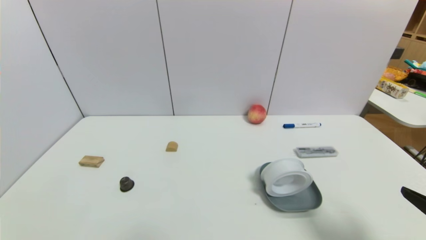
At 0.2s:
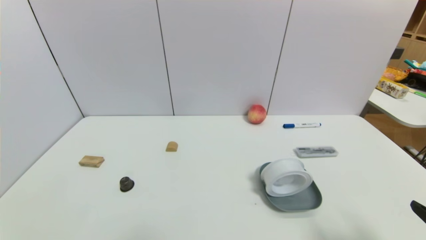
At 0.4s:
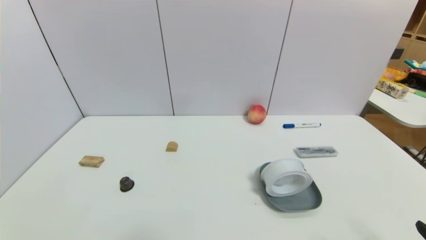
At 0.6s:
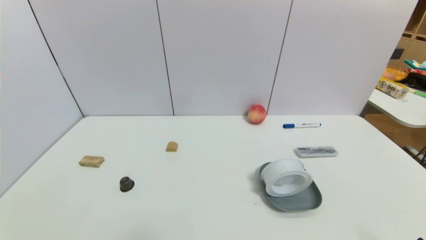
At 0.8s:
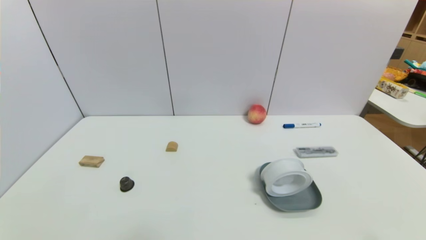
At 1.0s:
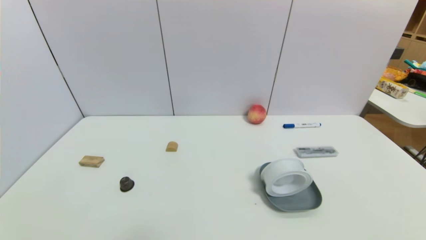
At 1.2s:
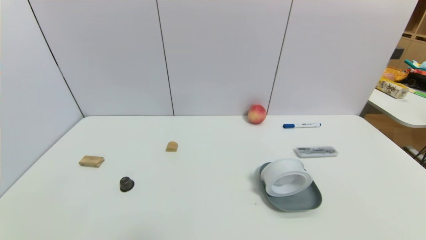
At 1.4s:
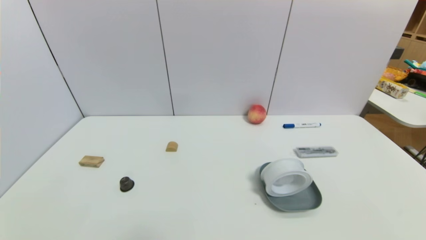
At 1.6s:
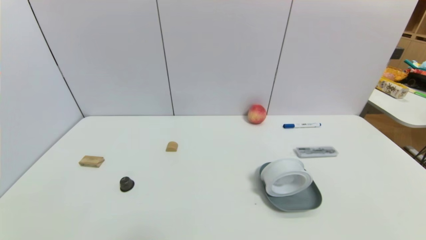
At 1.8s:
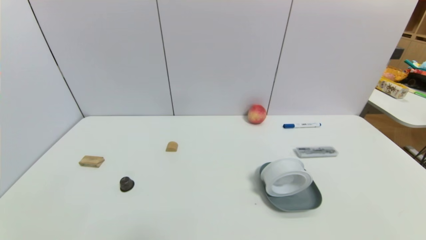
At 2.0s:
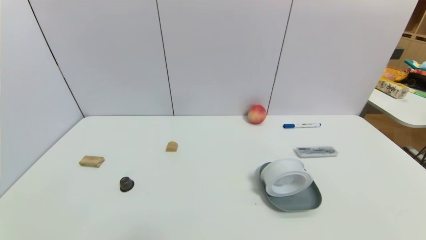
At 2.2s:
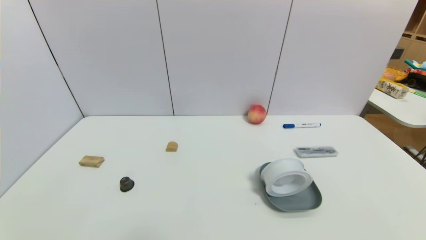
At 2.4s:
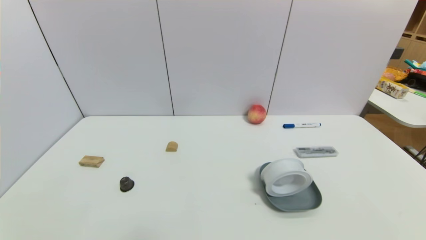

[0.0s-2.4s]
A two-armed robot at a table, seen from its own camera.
Task of the whole recording: use a gripper to pick the target object and place on the dish.
0.0s to 1.2s: The right gripper shifts some 15 cm downward and backward.

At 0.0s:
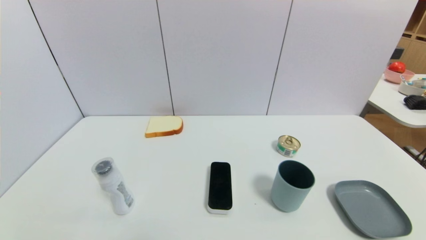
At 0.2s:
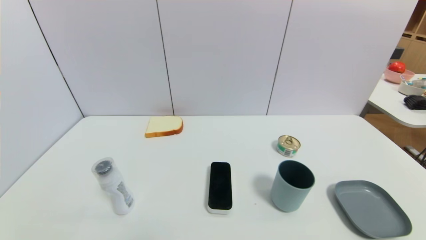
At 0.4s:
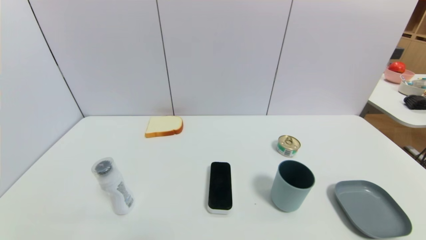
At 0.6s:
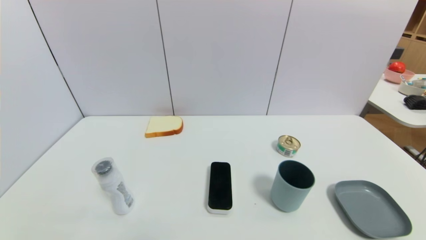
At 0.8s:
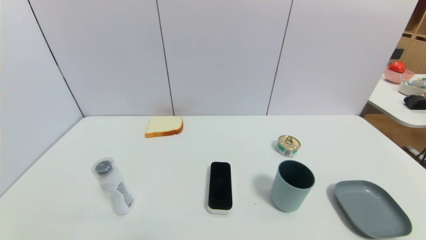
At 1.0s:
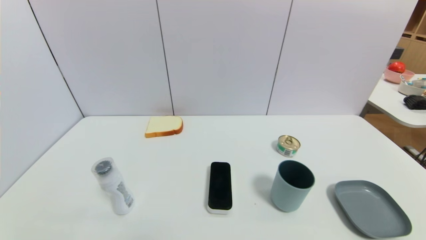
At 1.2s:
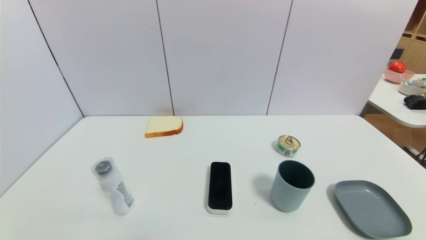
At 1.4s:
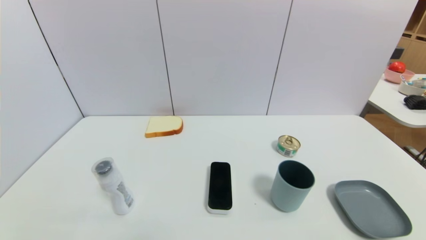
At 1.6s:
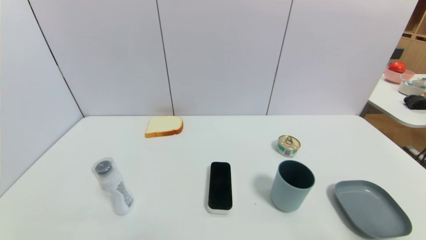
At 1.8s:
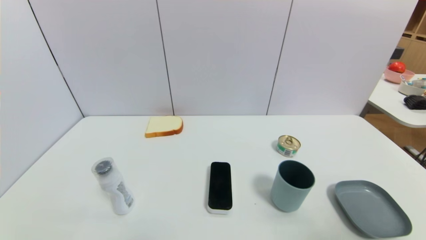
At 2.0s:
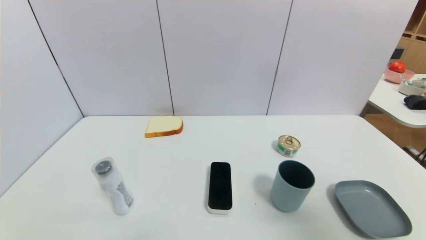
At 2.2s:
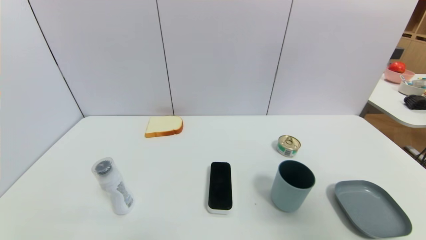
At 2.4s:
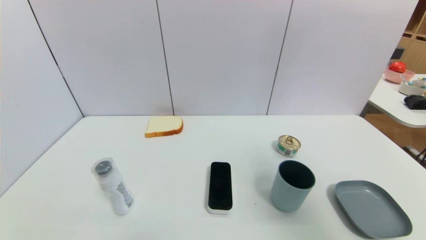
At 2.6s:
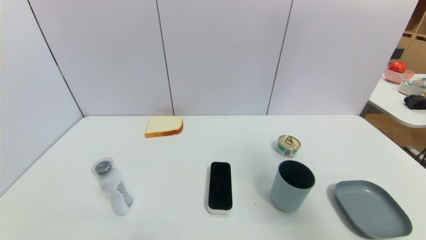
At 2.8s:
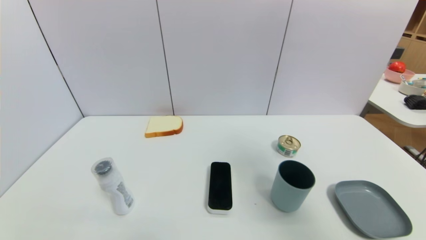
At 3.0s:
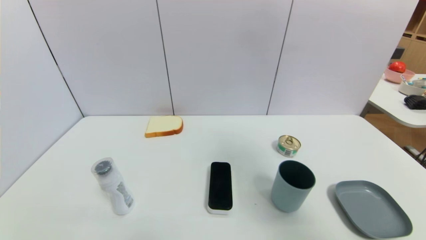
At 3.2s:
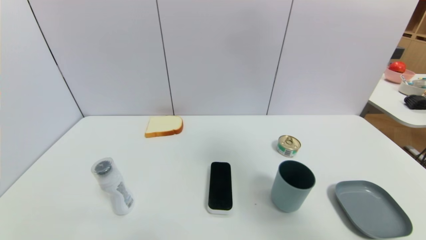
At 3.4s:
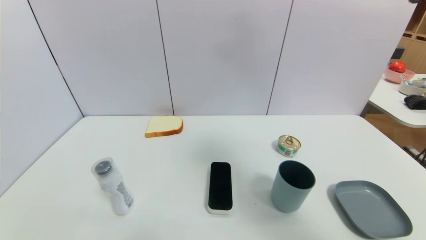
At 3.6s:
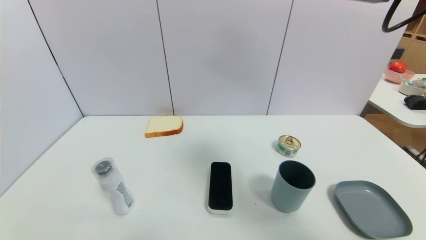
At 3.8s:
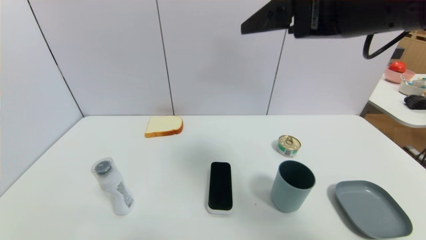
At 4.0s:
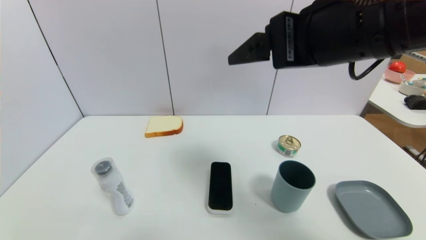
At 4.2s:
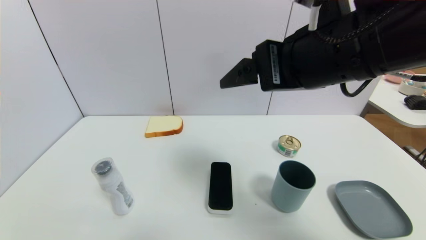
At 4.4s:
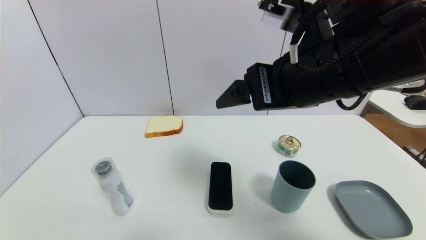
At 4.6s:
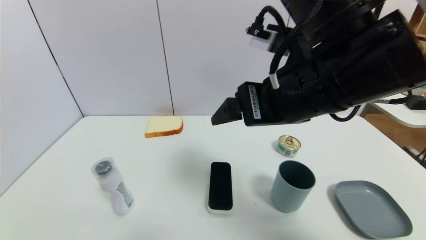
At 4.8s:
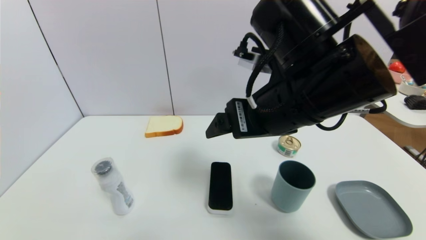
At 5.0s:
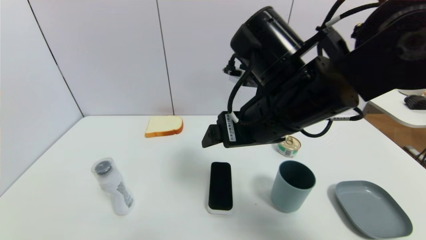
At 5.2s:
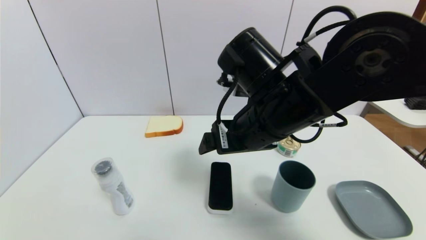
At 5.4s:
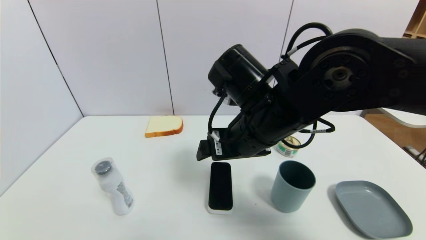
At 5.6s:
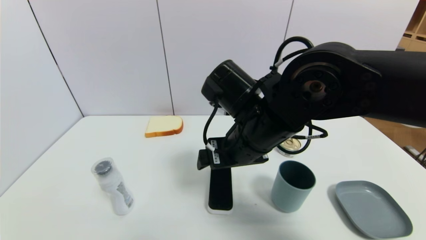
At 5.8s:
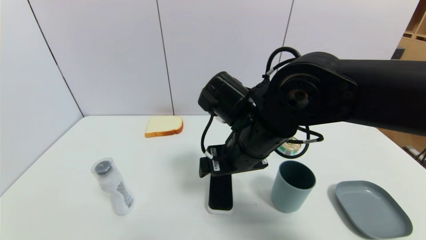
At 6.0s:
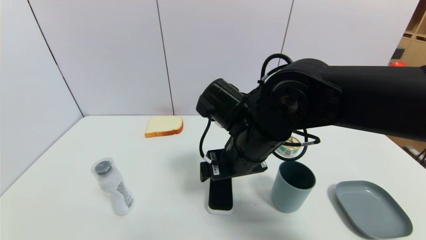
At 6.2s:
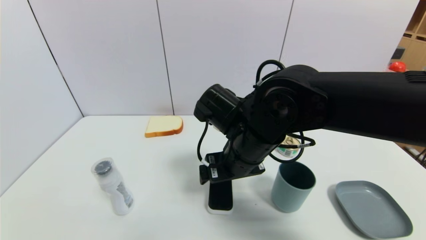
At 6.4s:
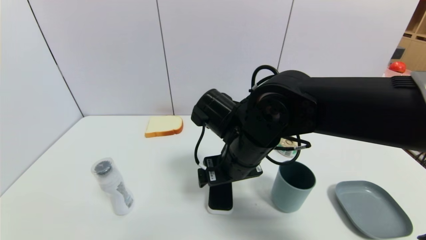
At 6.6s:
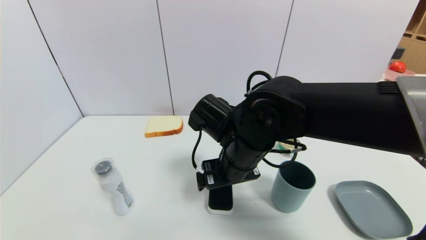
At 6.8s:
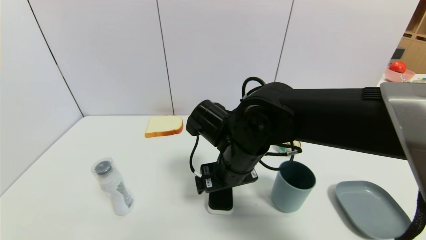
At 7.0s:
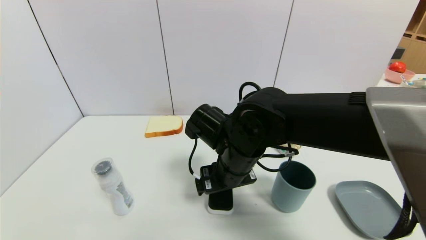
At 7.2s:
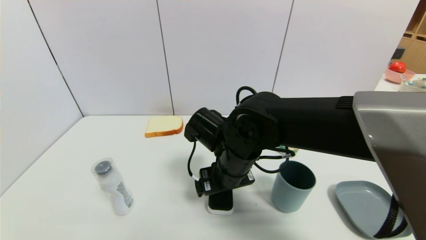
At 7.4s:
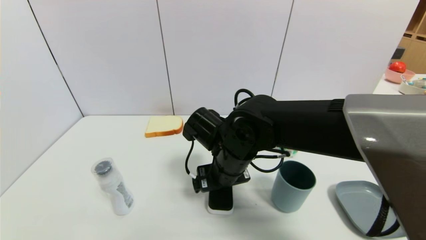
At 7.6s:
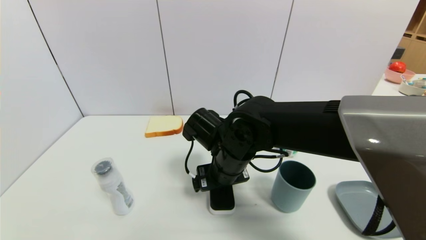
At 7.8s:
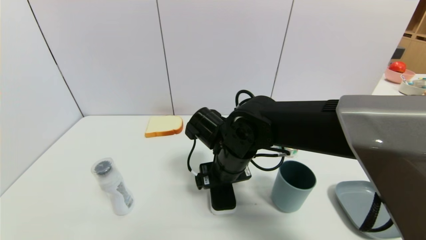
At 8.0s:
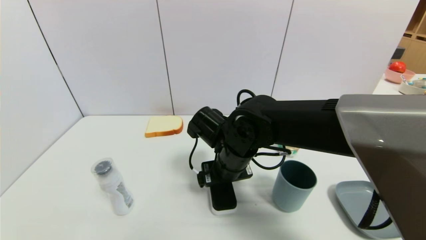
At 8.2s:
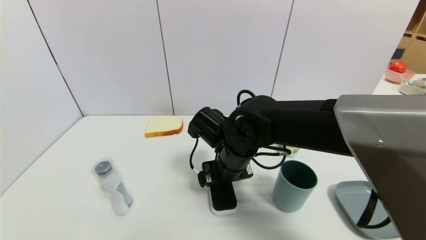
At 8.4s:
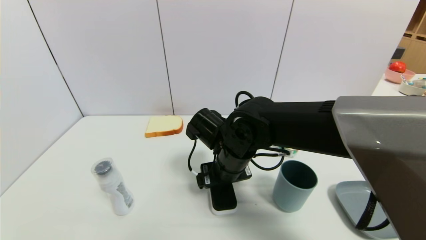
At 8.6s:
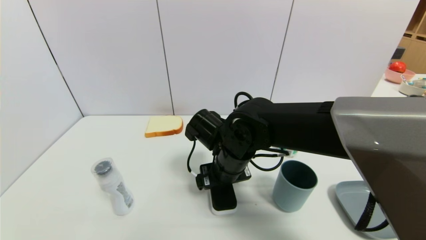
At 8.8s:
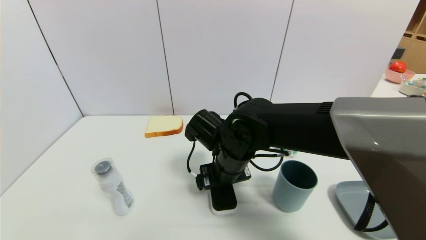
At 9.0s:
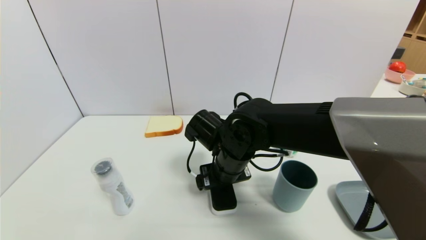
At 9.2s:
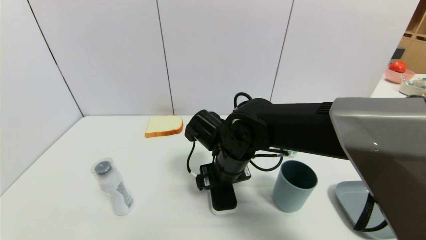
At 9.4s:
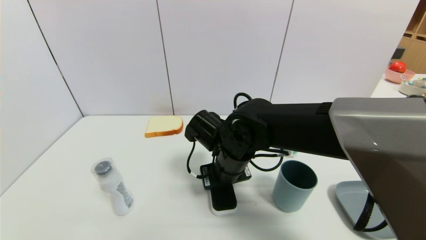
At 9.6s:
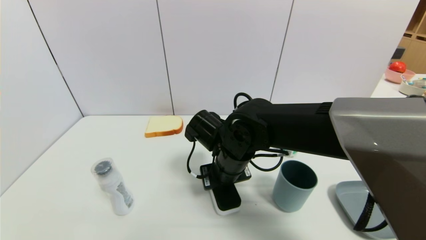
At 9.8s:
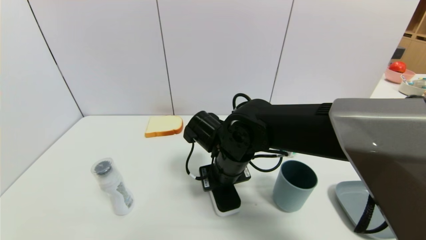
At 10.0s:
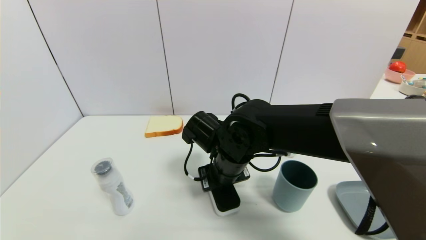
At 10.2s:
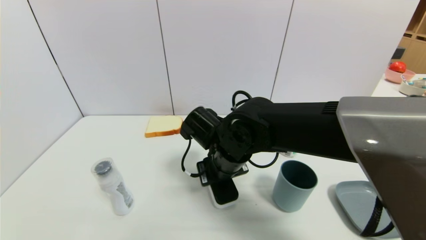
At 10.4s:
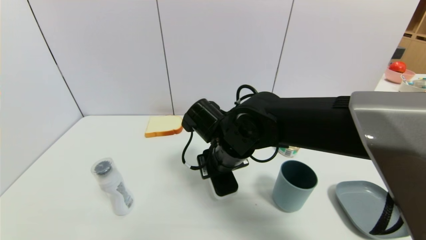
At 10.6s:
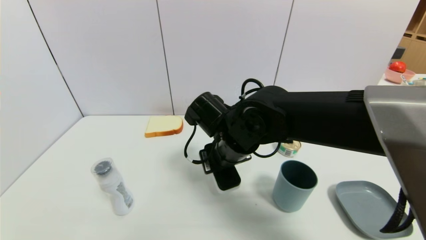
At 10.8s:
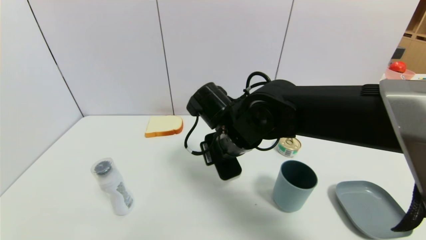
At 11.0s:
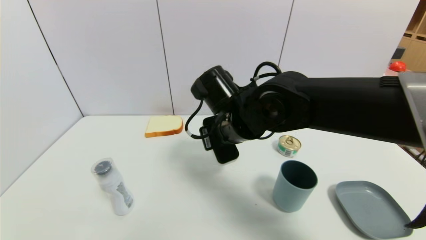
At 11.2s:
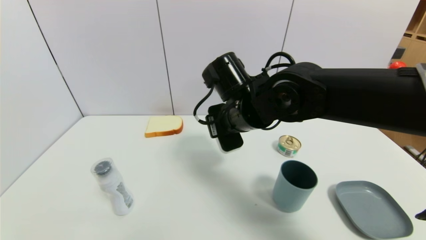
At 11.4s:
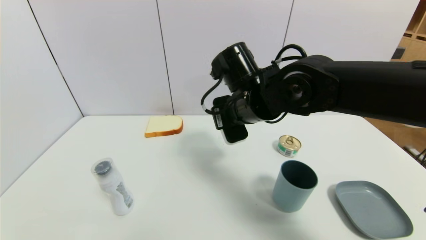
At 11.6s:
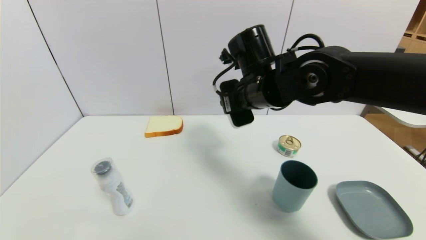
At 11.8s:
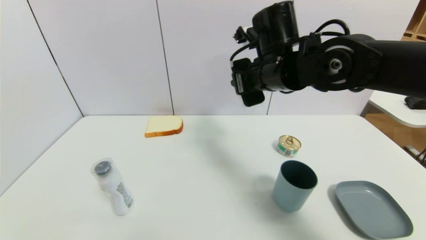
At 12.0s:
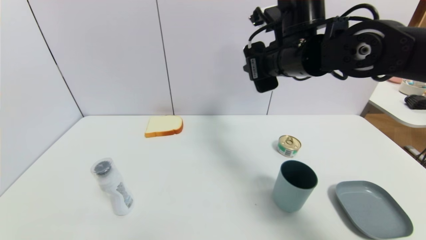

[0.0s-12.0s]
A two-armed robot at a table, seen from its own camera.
Task of the whole recording: use a gripper to pick the target object and place on the dish.
Step, 0.0s to 9.8s: Grasp the blackboard erasure with the right gripper.
1.6s to 3.0s: The right gripper is displaced upward, forward and to the left by about 30 cm.
3.0s to 4.4s: The right gripper goes about 20 cm to the left and downward.
4.4s to 6.0s: The right gripper travels downward and to the left by about 15 cm.
6.0s to 7.6s: The right gripper shifts some 5 cm downward.
7.6s to 9.0s: Both grippers stay about where they are.
9.0s to 10.4s: The right gripper closes.
10.4s to 12.0s: The right gripper heads upward, to the right and forward, covering roughly 20 cm.

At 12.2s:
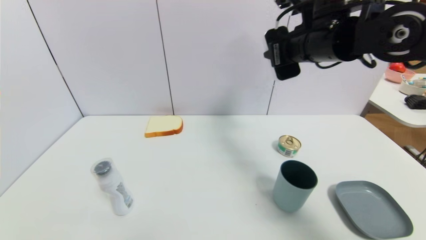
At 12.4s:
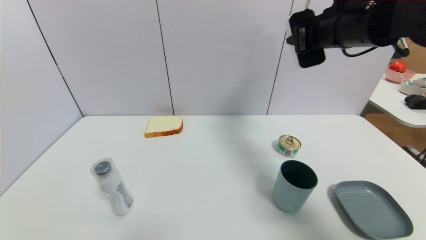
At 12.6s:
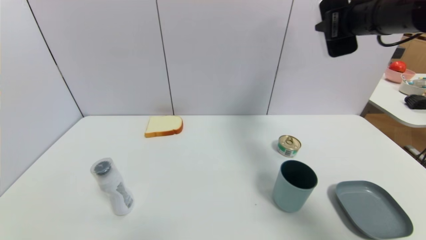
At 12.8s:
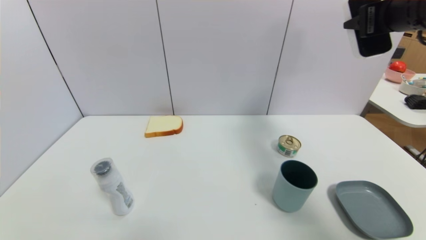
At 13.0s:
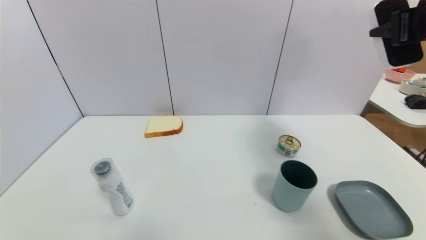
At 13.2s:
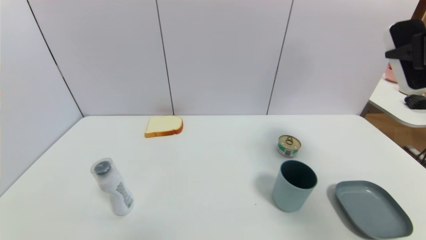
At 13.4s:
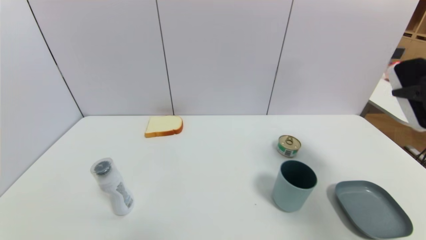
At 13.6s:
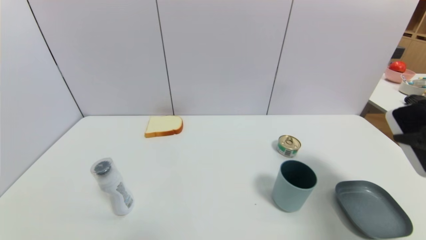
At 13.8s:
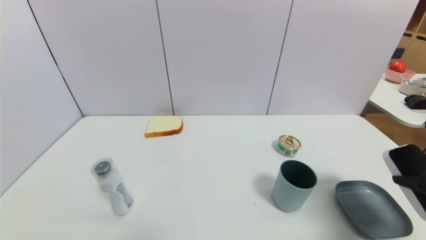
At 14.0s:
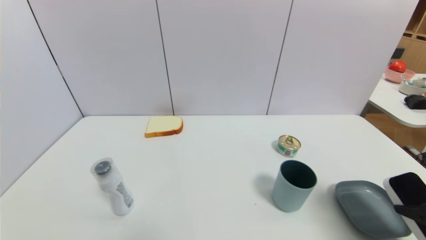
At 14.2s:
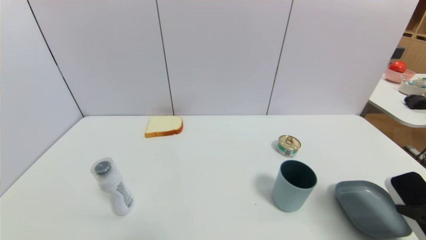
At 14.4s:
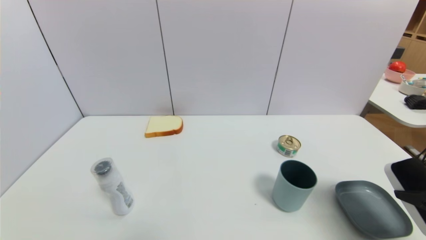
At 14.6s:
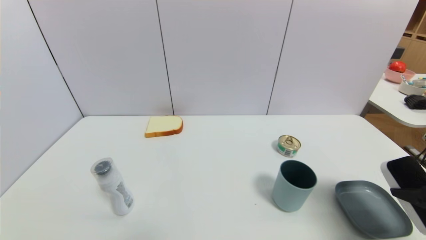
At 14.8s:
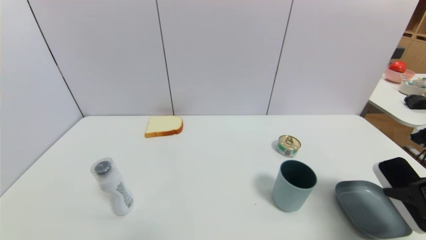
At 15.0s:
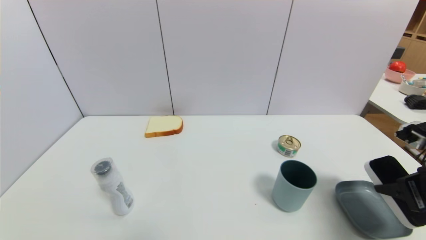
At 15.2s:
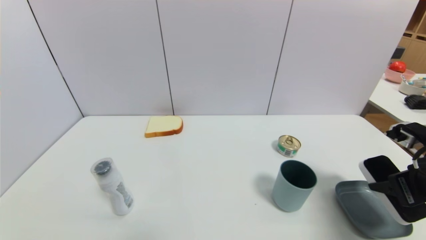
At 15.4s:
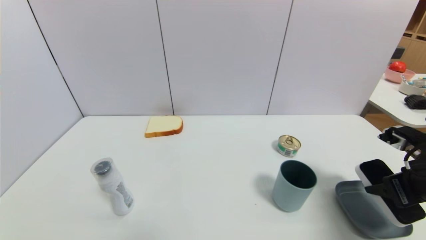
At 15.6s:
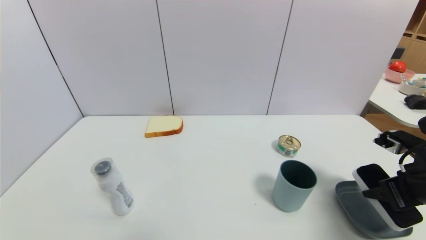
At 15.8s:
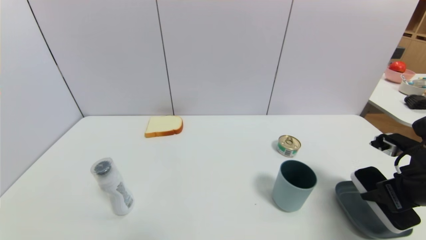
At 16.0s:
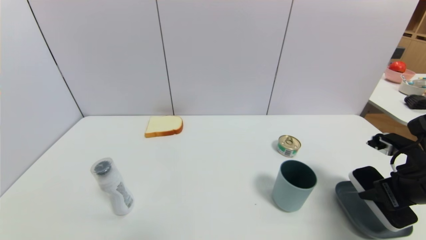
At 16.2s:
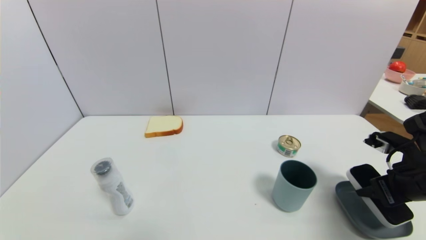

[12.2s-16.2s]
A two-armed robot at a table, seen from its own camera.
Task of the whole recording: use a gripper to pick the target object and place on the dish.
12.2s to 13.6s: The right gripper goes about 25 cm backward, to the right and downward.
13.6s to 14.8s: The right gripper travels downward by some 5 cm.
14.8s to 16.2s: The right gripper heads forward, covering some 5 cm.
